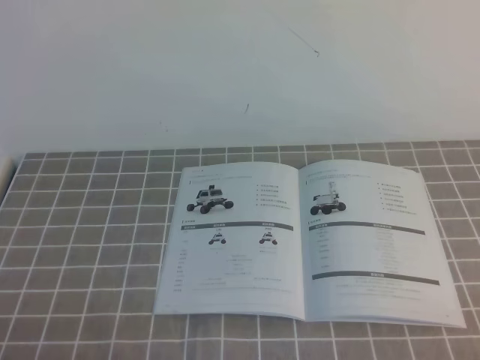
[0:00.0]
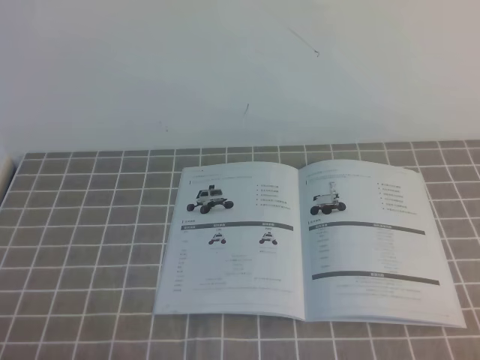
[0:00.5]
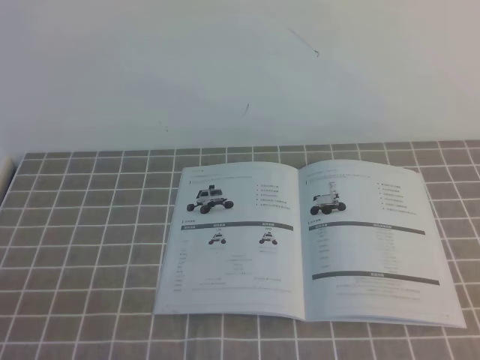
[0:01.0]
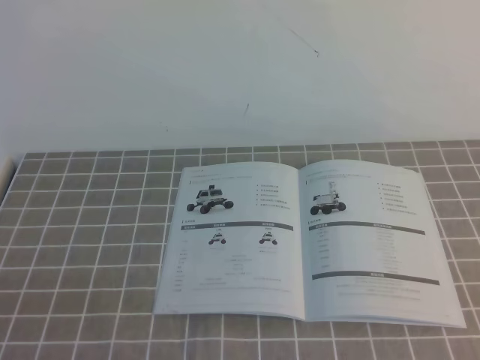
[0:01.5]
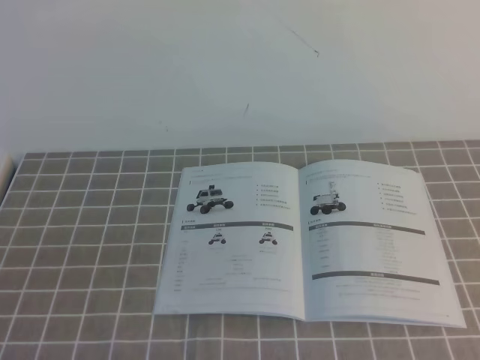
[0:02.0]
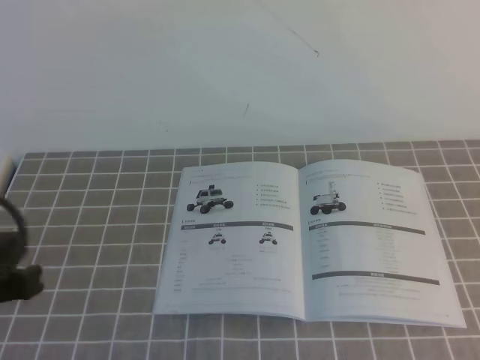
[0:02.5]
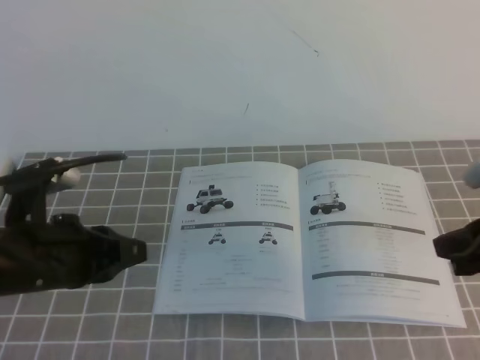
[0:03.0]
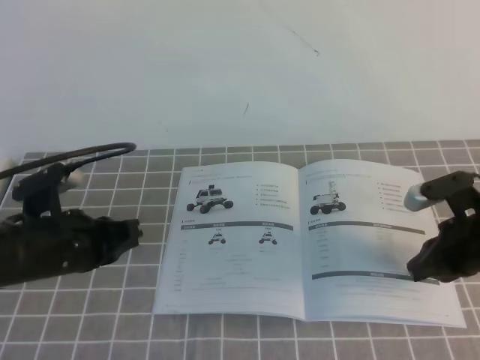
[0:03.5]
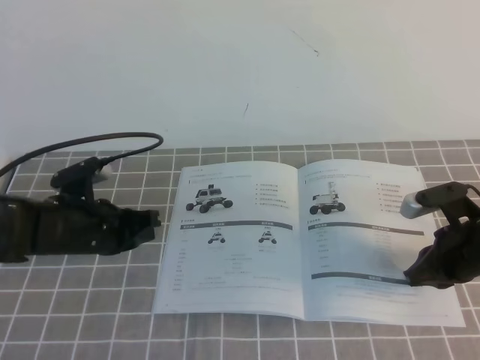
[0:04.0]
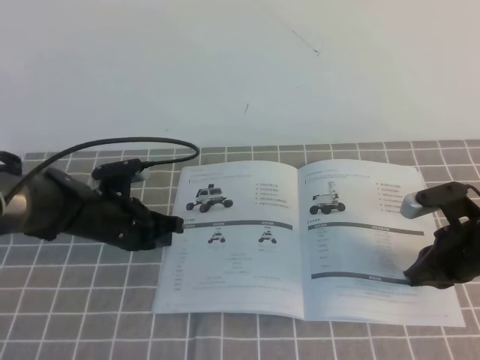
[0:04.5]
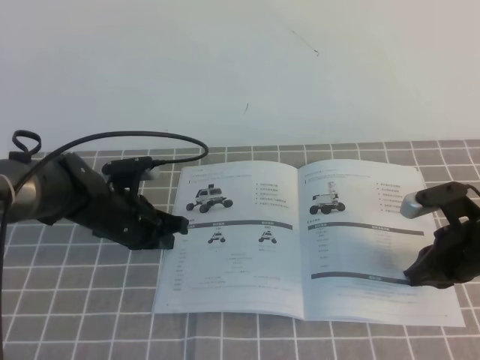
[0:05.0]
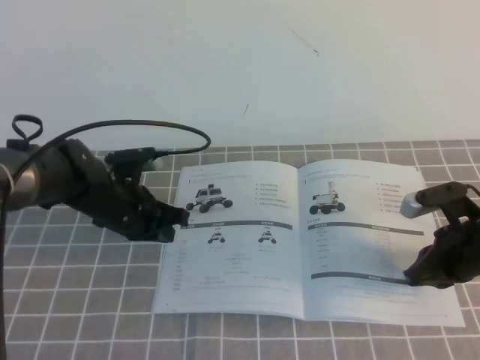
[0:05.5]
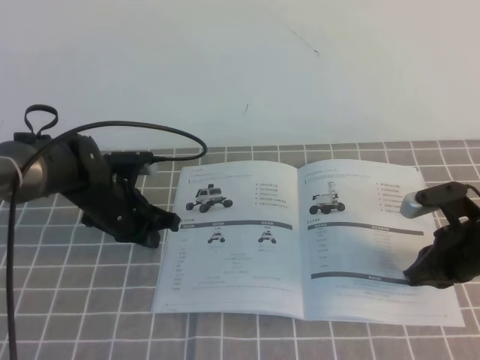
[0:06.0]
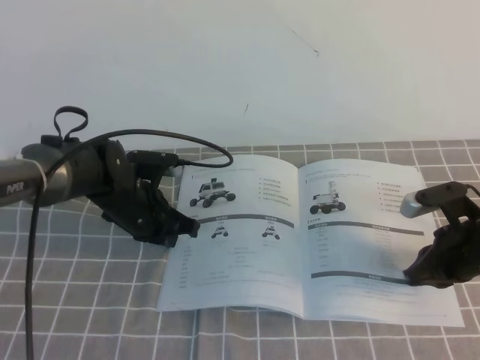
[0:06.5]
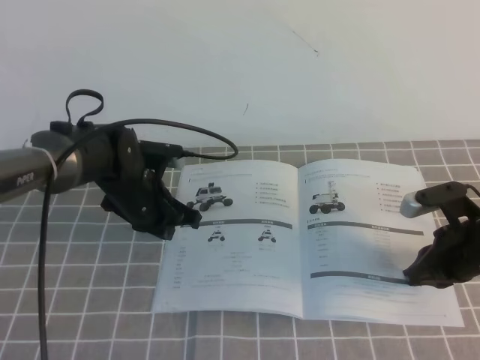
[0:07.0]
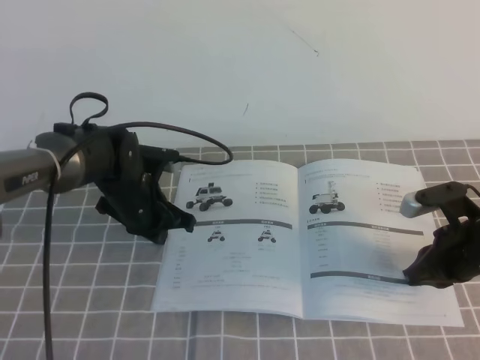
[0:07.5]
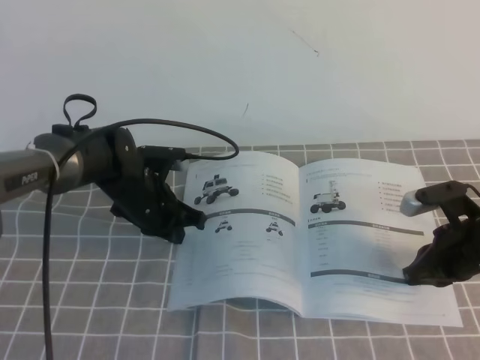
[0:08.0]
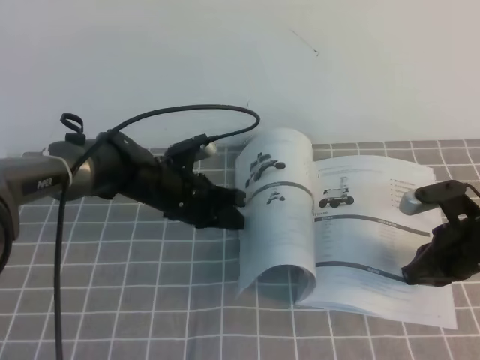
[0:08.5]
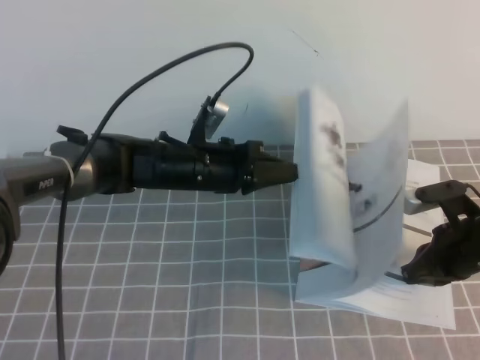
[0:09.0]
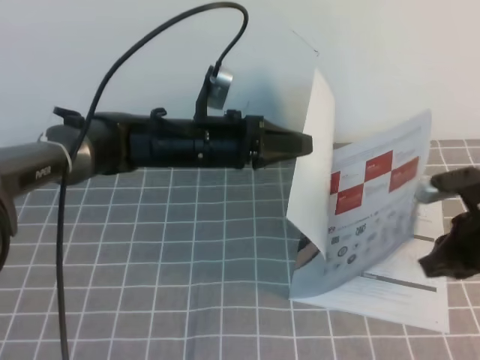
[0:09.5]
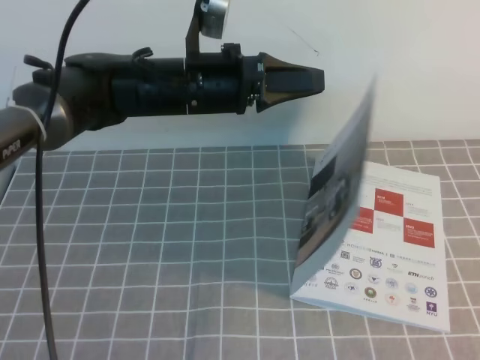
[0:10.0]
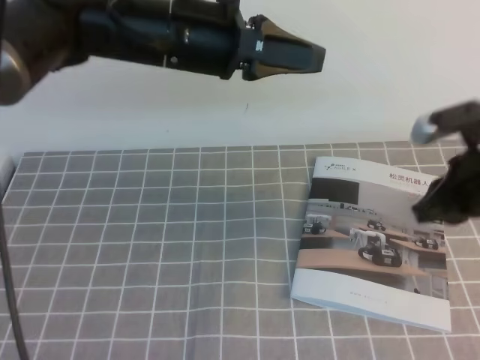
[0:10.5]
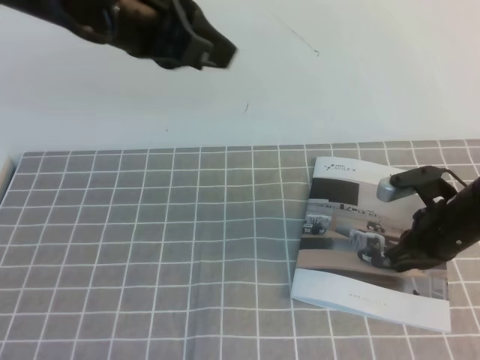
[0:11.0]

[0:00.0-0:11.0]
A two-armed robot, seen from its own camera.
Task of the whole recording: on the grey tablecloth, hold the book with one hand and close it with the other.
0:02.0 to 0:03.5: Both grippers move forward and downward, roughly 30 cm.
0:03.5 to 0:05.5: The left gripper heads forward, covering roughly 10 cm.
0:05.5 to 0:07.5: The grippers stay close to where they were, moving slightly.
0:07.5 to 0:09.0: The left gripper moves to the right, about 5 cm.
0:09.0 to 0:11.0: The left gripper heads upward, covering about 25 cm. Meanwhile the right gripper moves some 20 cm upward and comes back.

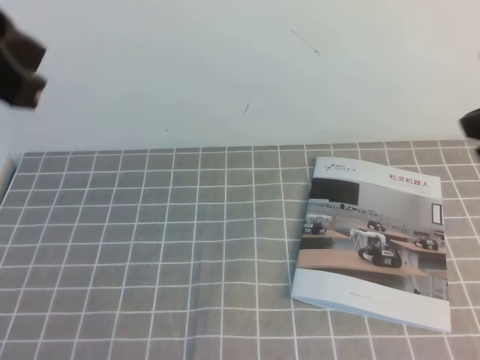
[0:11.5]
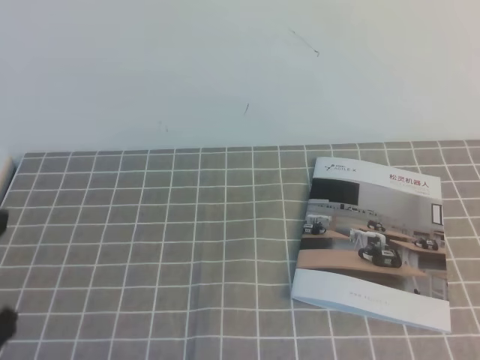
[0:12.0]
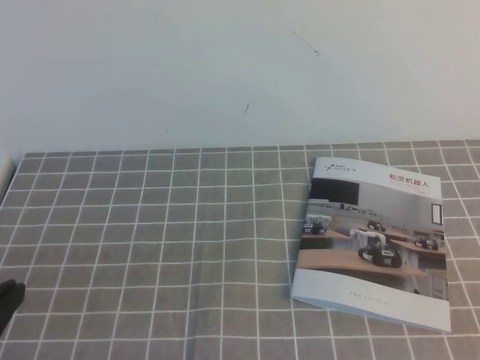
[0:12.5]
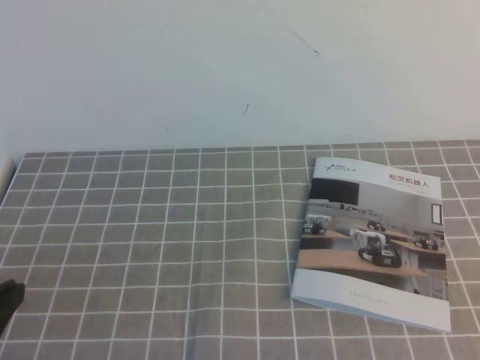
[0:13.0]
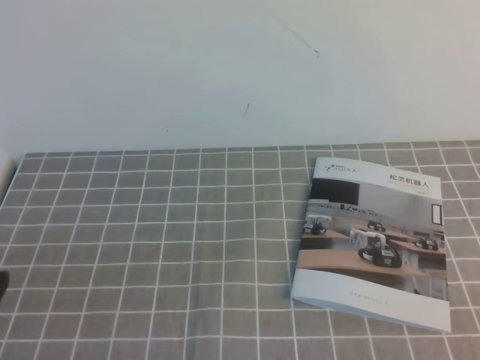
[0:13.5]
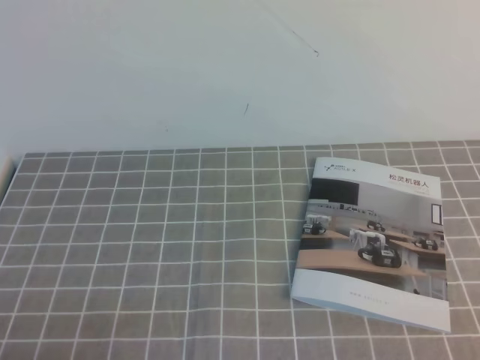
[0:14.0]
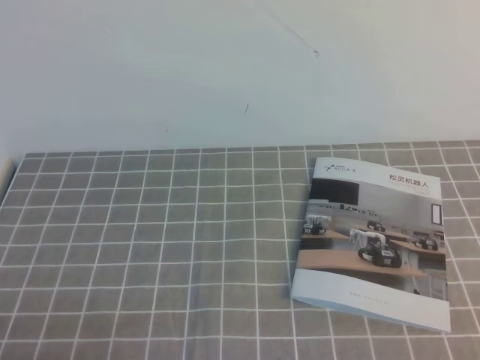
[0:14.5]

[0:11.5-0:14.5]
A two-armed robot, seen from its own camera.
Task of the whole recording: on the grey tablecloth, hold the book with one hand and close it with the other.
Step, 0:11.5 to 0:14.5: Close the open book.
0:11.5 to 0:13.0: The left gripper is displaced downward and backward by some 25 cm. Meanwhile the right gripper heads backward, covering approximately 20 cm.
